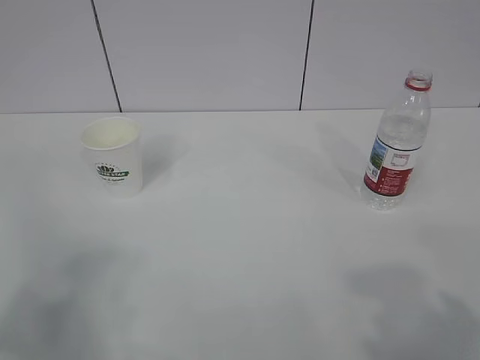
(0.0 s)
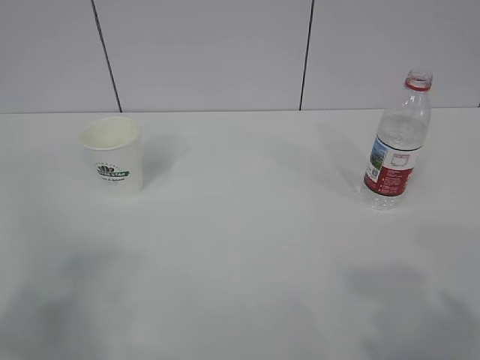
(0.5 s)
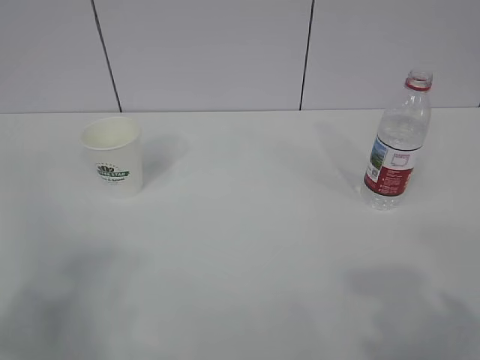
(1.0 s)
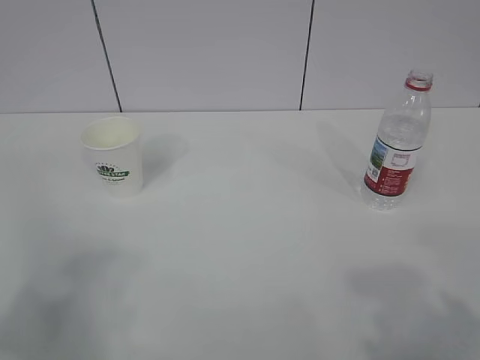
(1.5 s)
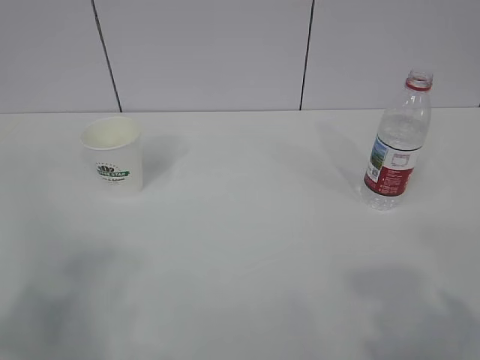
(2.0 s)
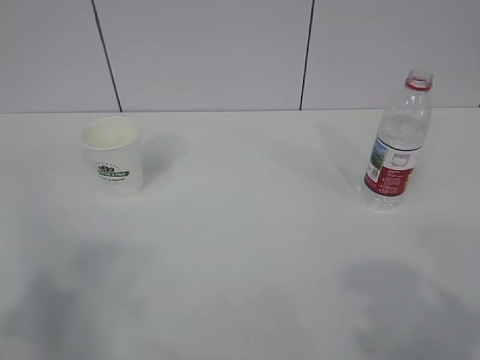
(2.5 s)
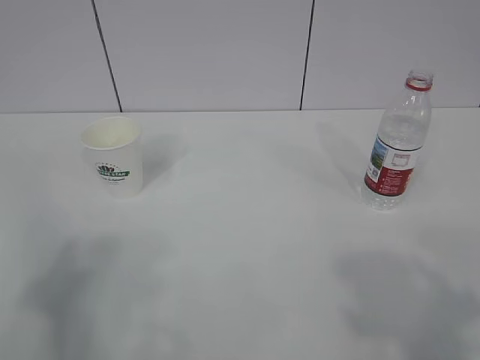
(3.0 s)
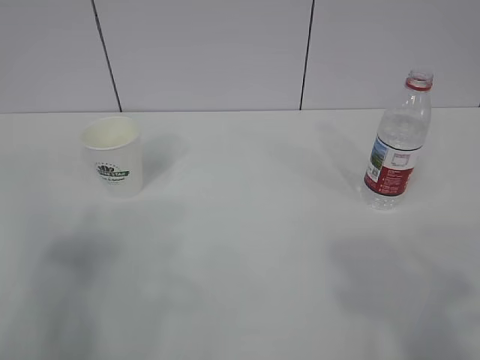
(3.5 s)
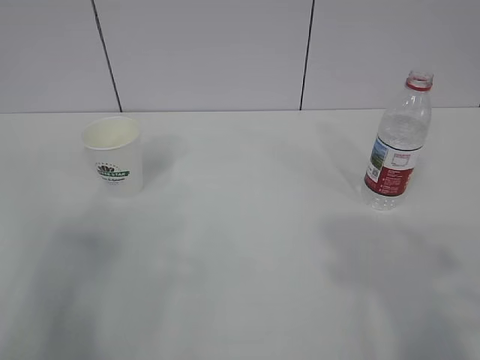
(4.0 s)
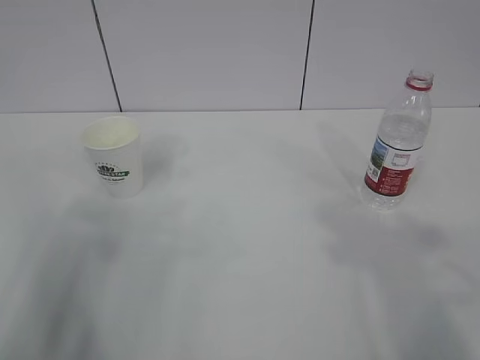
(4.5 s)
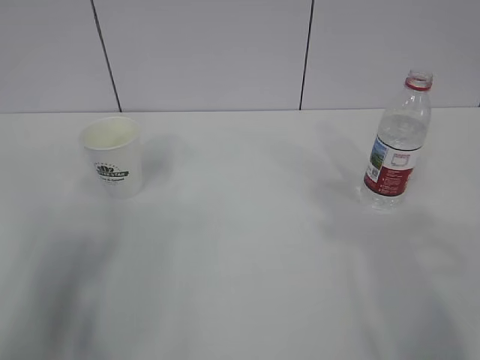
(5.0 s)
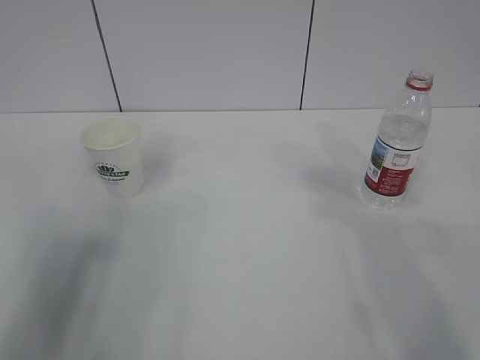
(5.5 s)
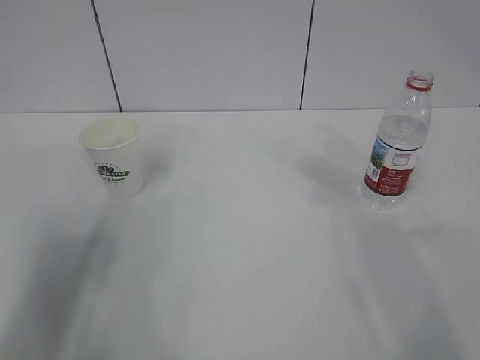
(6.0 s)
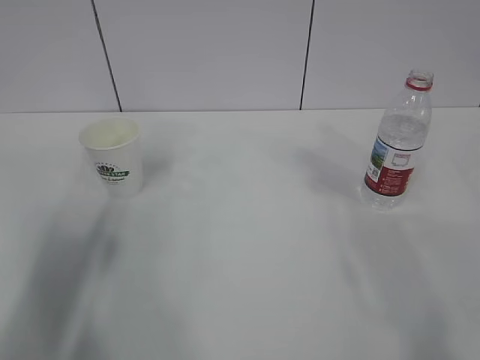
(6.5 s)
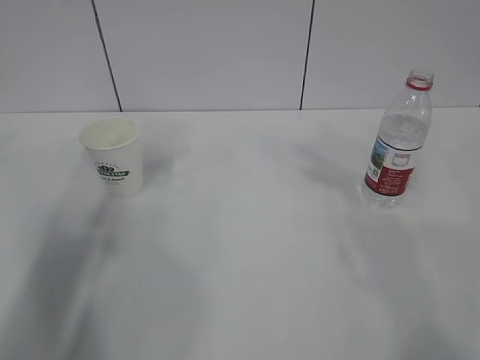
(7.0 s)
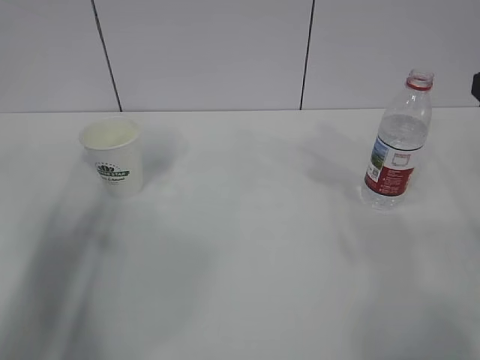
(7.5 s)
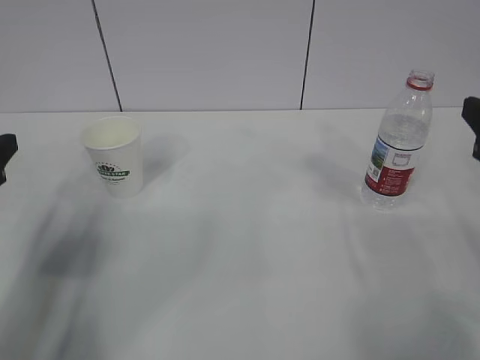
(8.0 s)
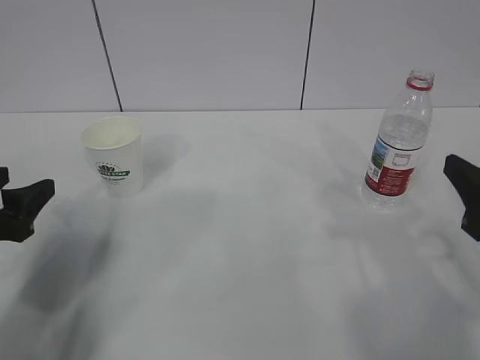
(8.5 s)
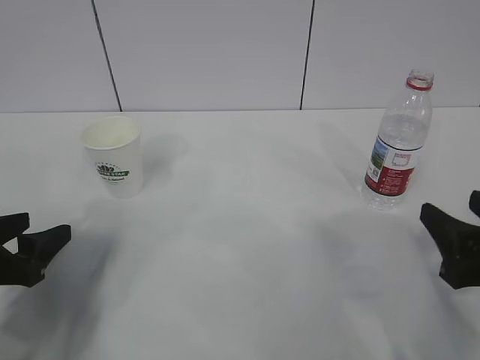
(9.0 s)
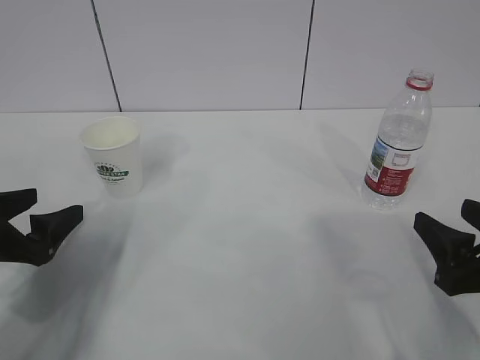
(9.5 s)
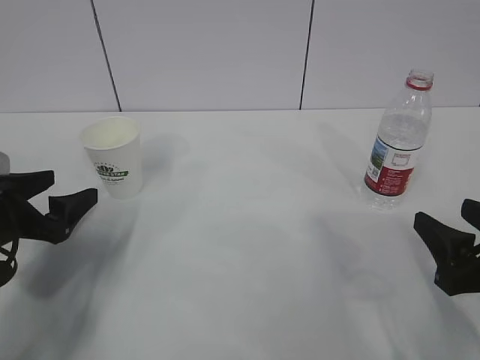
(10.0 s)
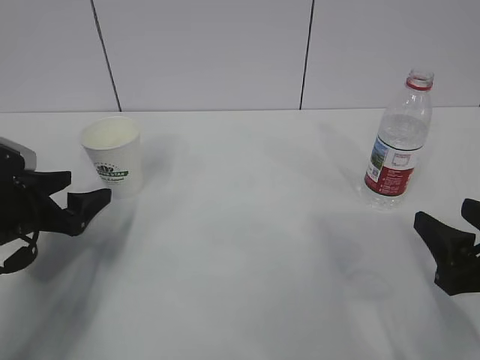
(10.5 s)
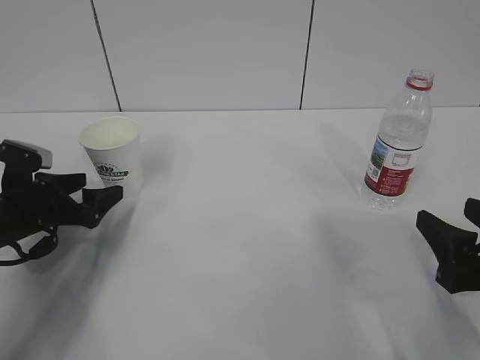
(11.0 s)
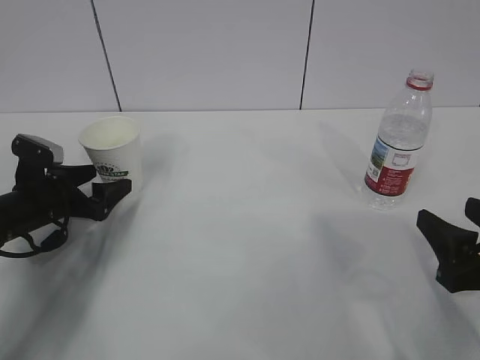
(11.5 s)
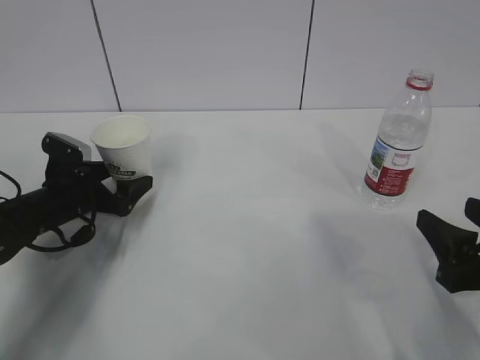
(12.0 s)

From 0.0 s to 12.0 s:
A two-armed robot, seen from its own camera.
From 6.0 s to 8.0 s: The left gripper shifts approximately 15 cm downward and forward.
From 8.0 s to 10.0 s: The two grippers go about 10 cm downward. The left gripper opens its fingers.
From 10.0 s to 12.0 s: The left gripper heads forward and downward, covering approximately 15 cm.

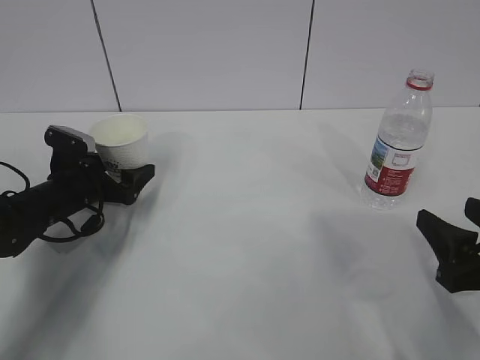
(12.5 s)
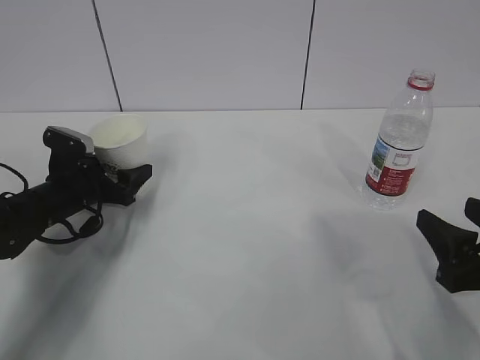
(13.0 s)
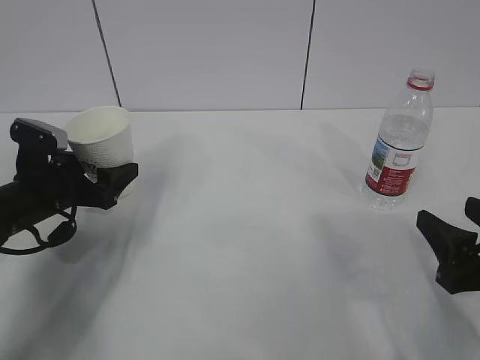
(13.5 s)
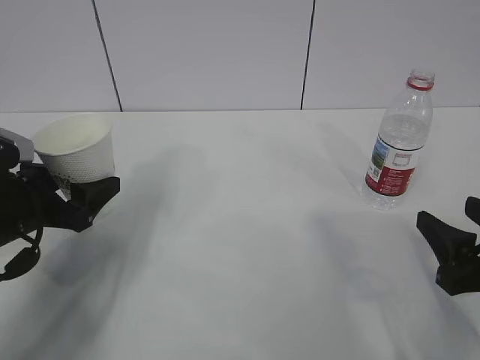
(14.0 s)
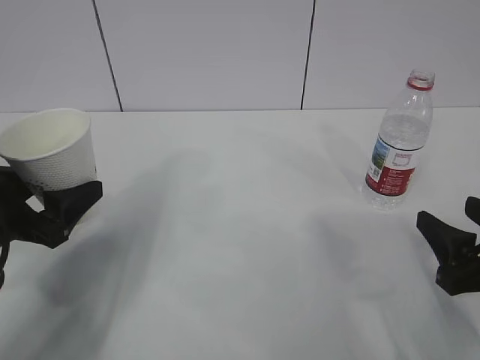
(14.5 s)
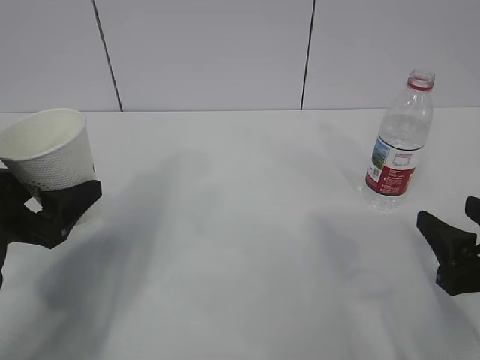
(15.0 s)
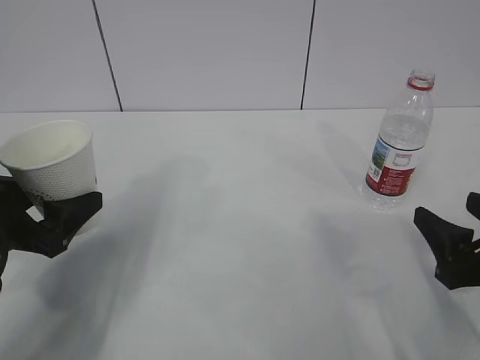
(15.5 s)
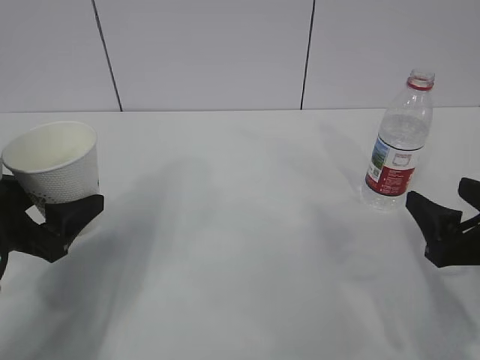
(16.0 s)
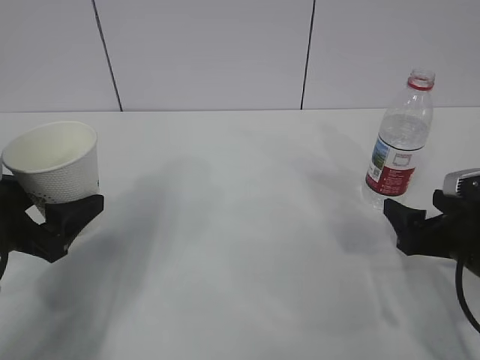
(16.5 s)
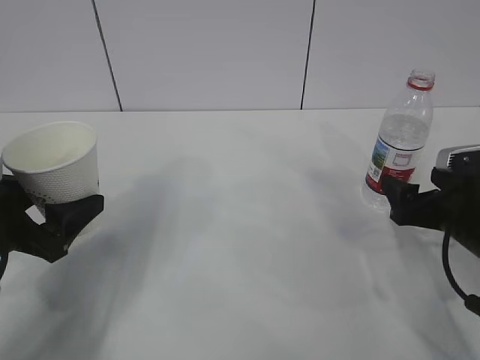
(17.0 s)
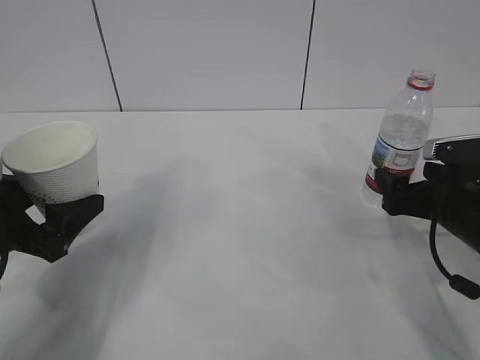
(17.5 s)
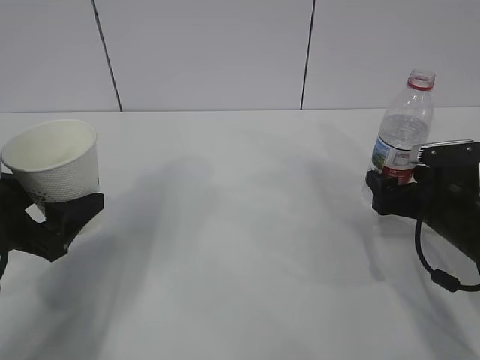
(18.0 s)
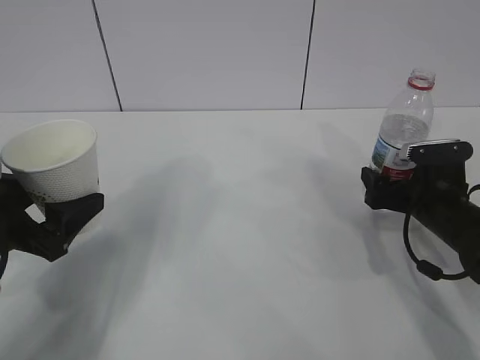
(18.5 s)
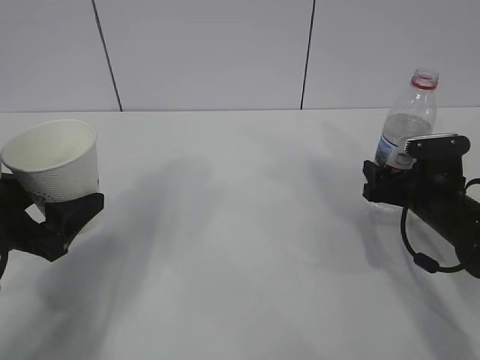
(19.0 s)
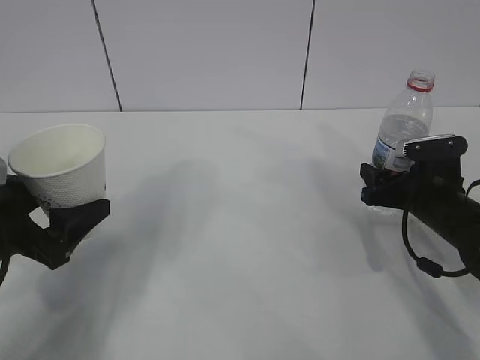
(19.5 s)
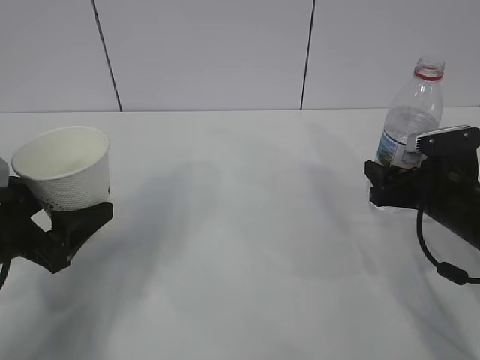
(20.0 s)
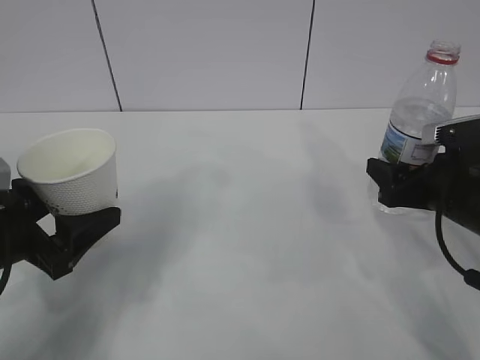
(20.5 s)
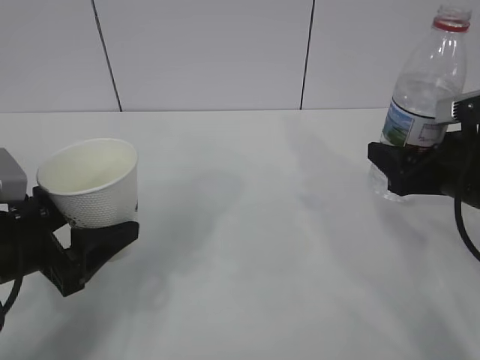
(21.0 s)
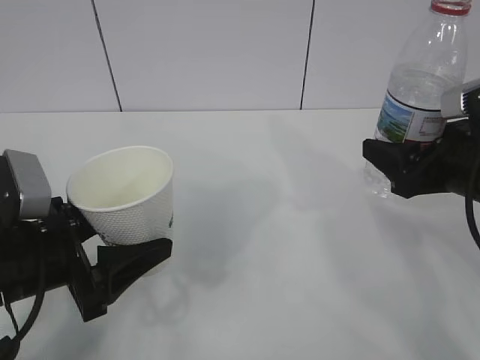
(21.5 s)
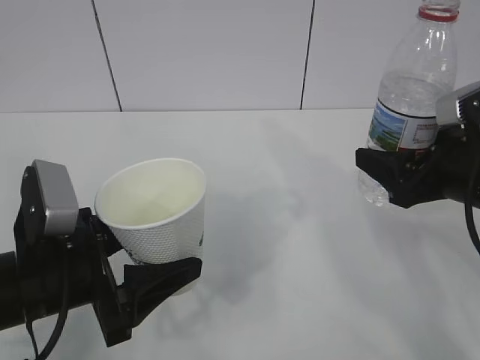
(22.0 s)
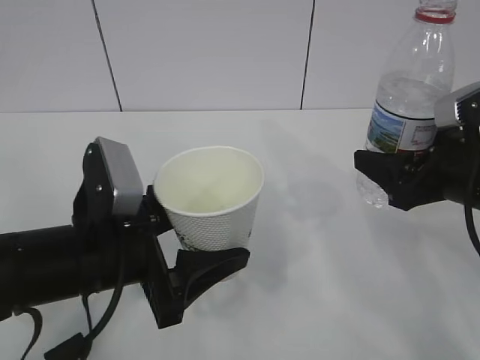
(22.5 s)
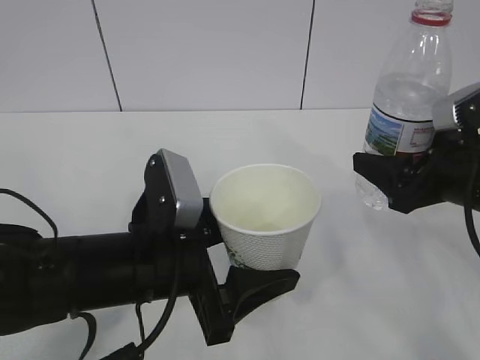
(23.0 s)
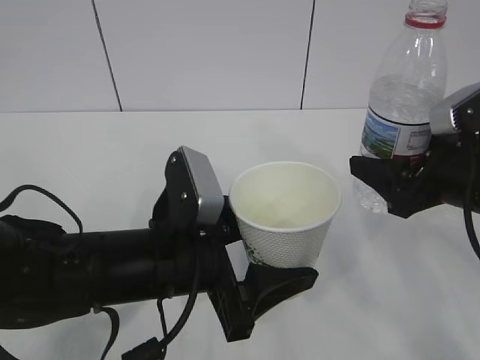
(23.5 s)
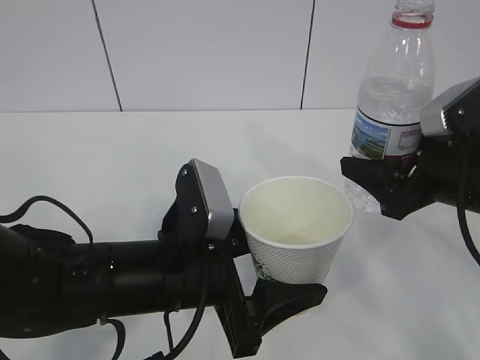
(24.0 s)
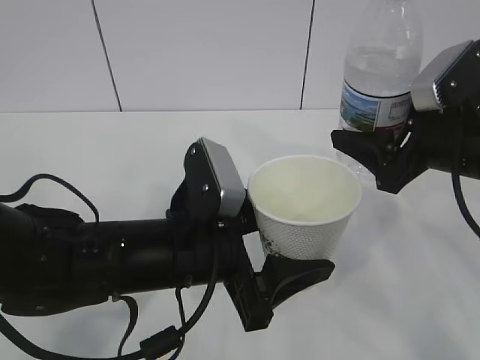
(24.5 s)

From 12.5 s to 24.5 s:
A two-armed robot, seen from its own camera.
From 12.5 s to 14.5 s: The left gripper heads backward and upward, covering some 20 cm, and closes up.
From 14.5 s to 16.5 s: The right gripper moves forward, some 5 cm, and opens its fingers.
From 16.5 s to 18.5 s: The right gripper moves forward, approximately 10 cm.
From 18.5 s to 20.5 s: The right gripper goes about 5 cm upward, and closes its fingers.
From 20.5 s to 22.5 s: The right gripper goes roughly 5 cm upward, while the left gripper travels to the right by roughly 10 cm.
From 22.5 s to 24.5 s: The left gripper moves to the right, roughly 5 cm.

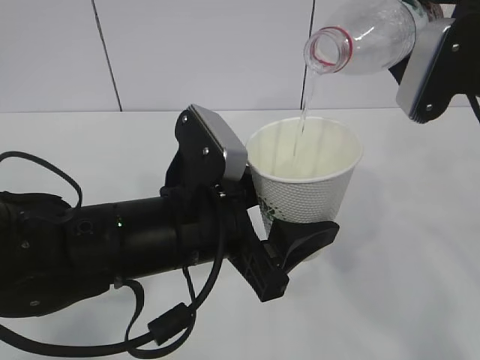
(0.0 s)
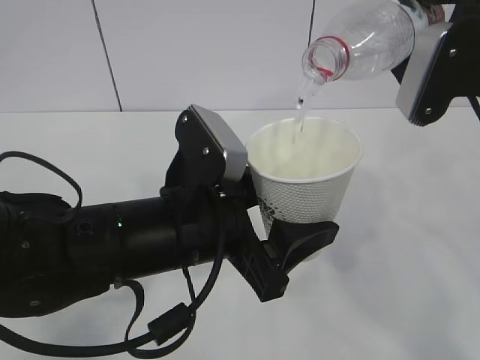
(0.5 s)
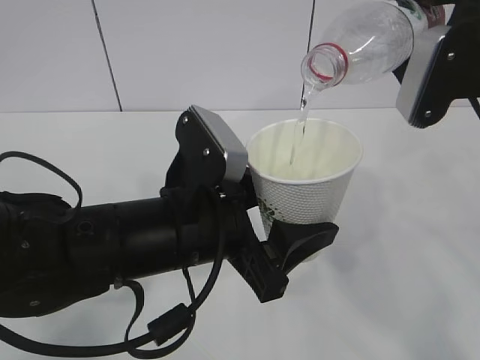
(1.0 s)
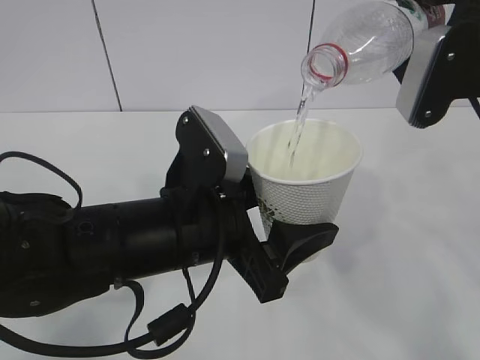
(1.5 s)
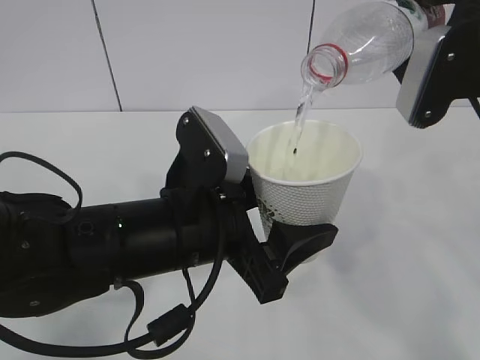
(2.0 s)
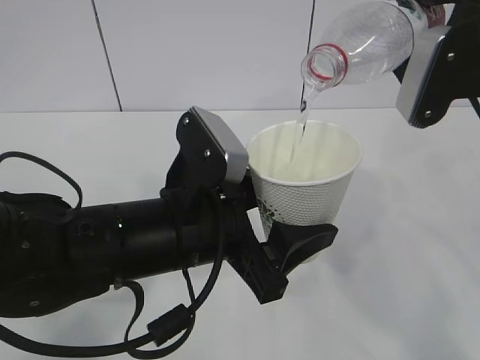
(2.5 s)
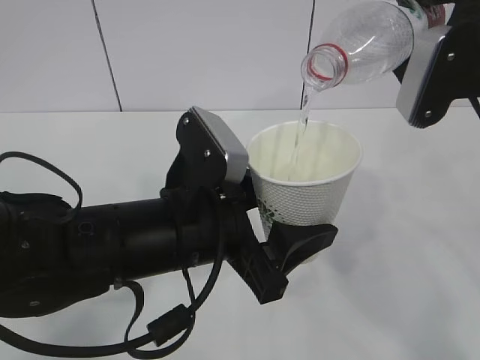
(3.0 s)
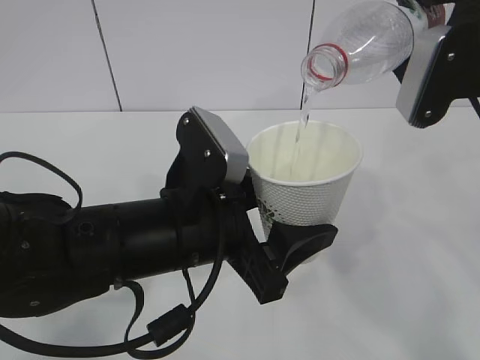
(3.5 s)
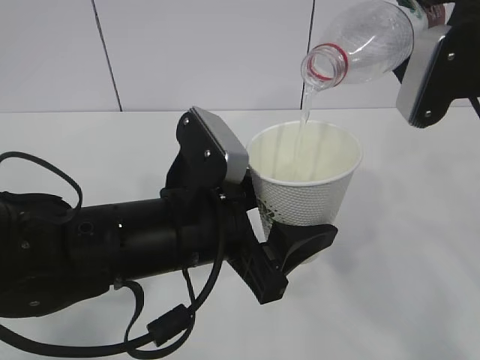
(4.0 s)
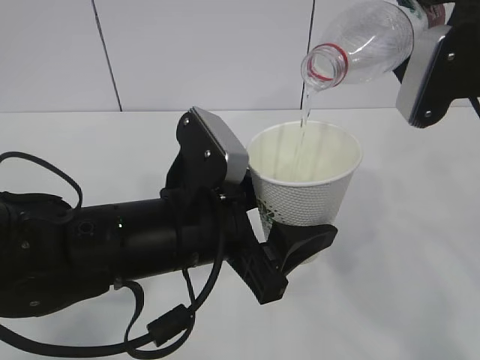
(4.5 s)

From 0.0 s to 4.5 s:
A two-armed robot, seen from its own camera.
From 0.0 s to 2.0 s: There are only small adjustments of the grippers.
From 2.0 s to 4.5 s: Both grippers stay about where they are.
